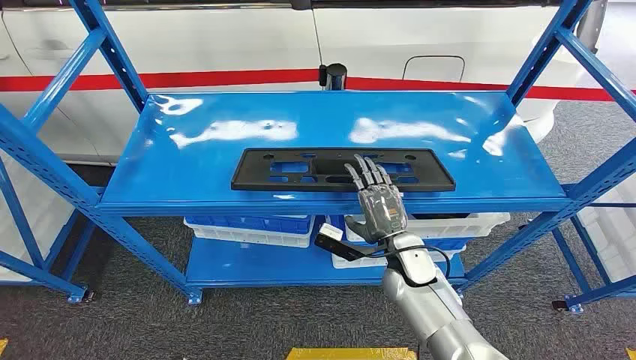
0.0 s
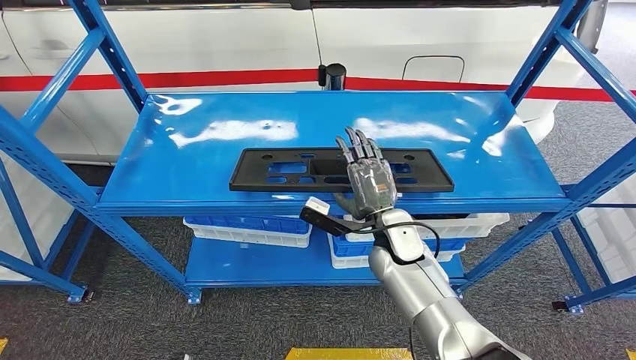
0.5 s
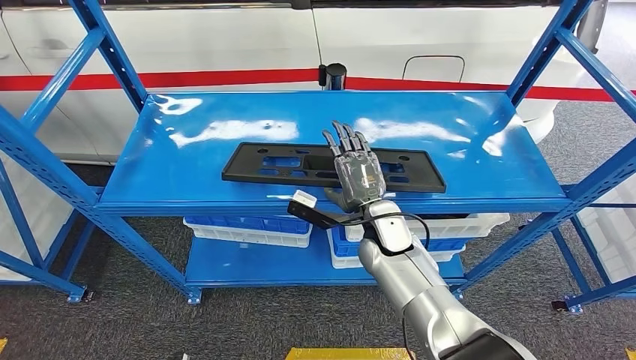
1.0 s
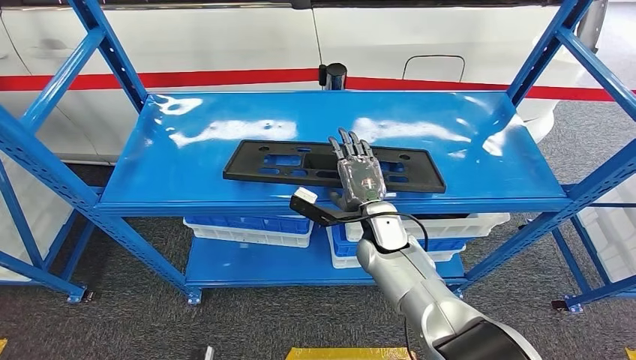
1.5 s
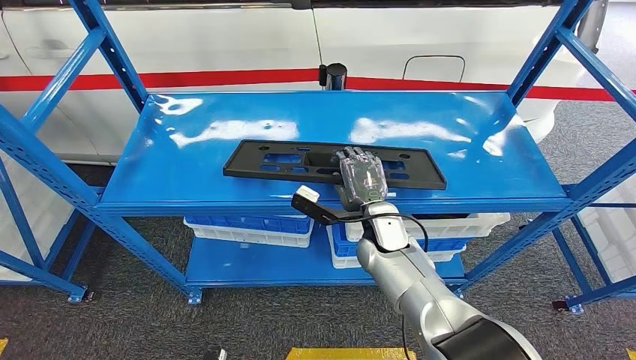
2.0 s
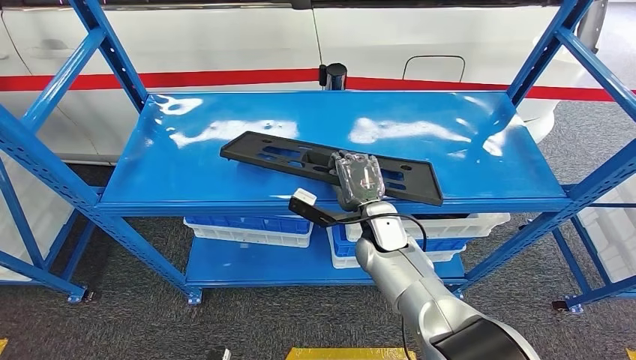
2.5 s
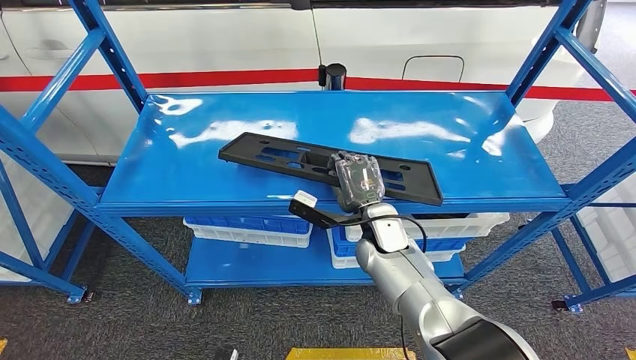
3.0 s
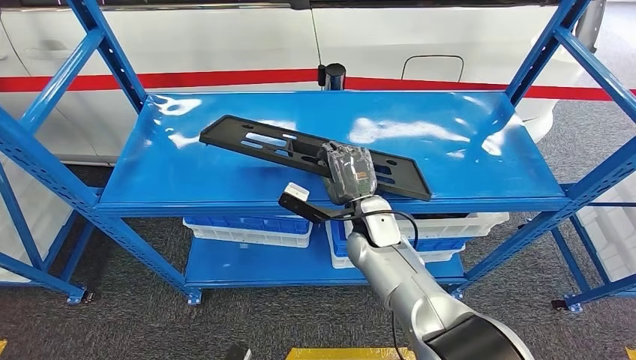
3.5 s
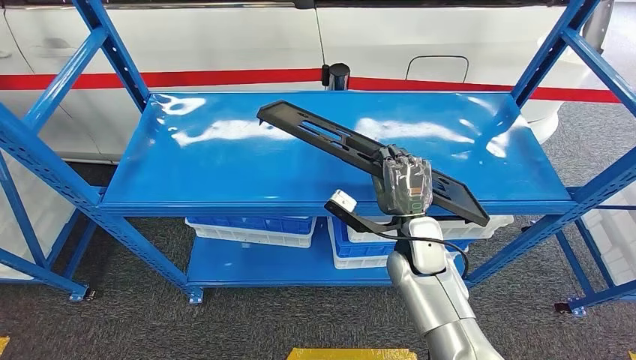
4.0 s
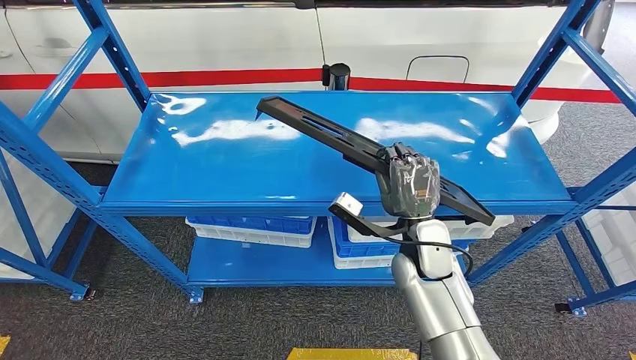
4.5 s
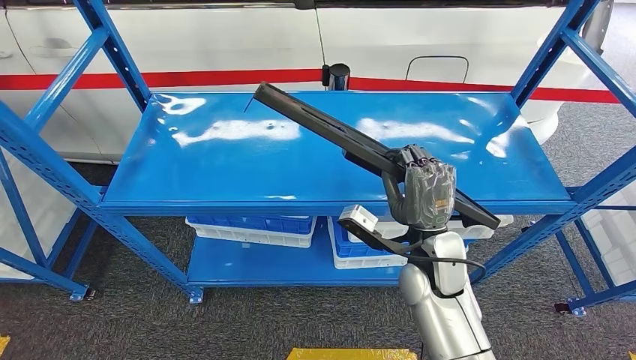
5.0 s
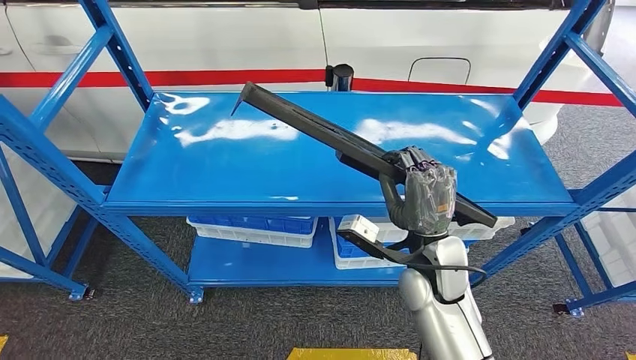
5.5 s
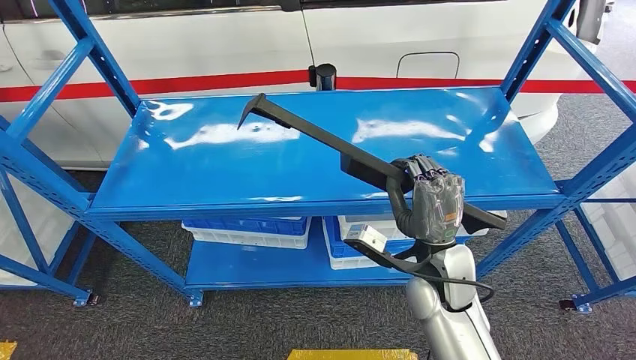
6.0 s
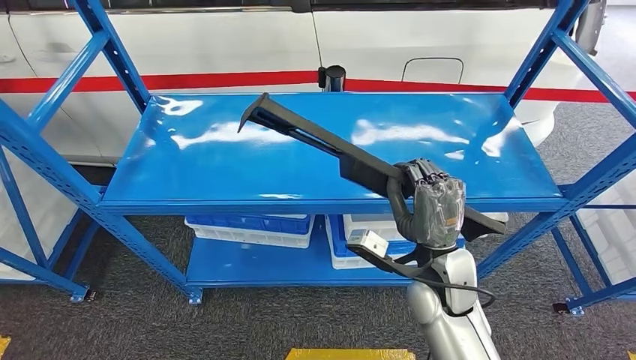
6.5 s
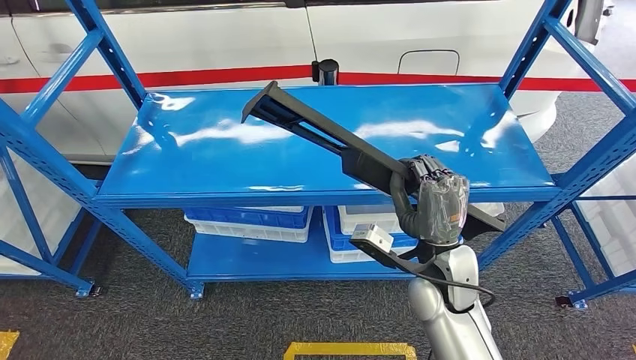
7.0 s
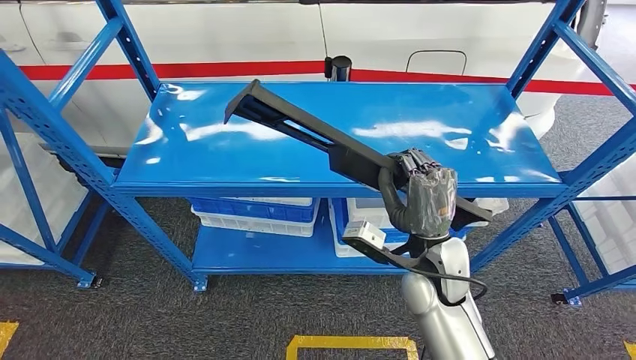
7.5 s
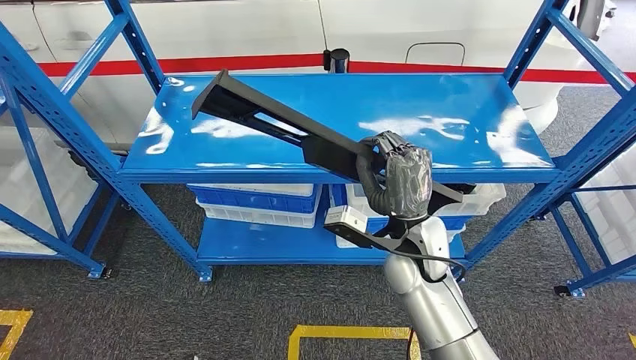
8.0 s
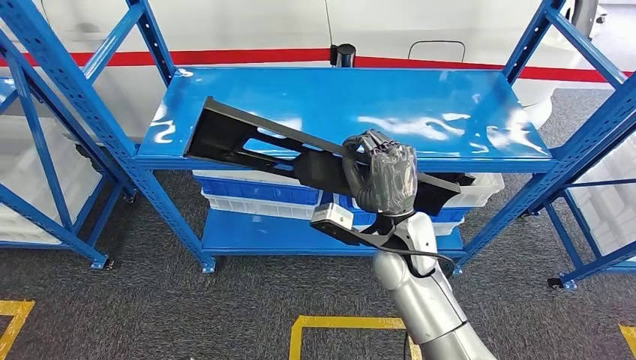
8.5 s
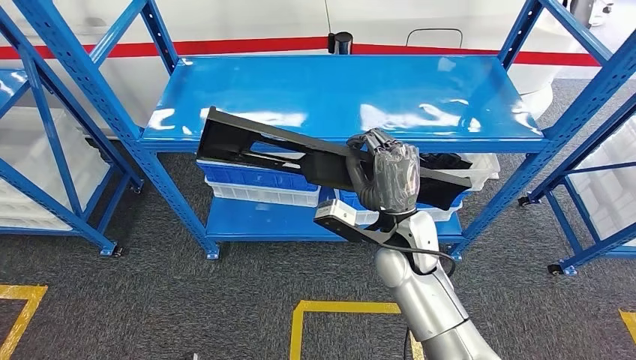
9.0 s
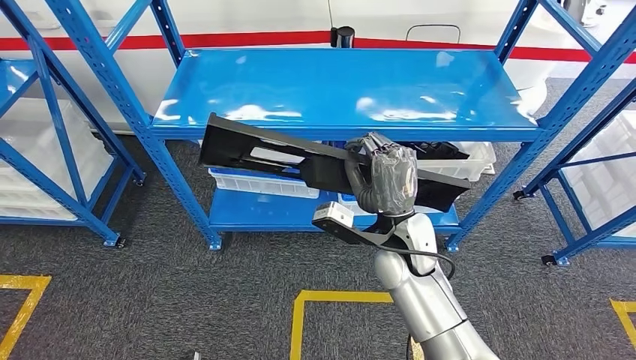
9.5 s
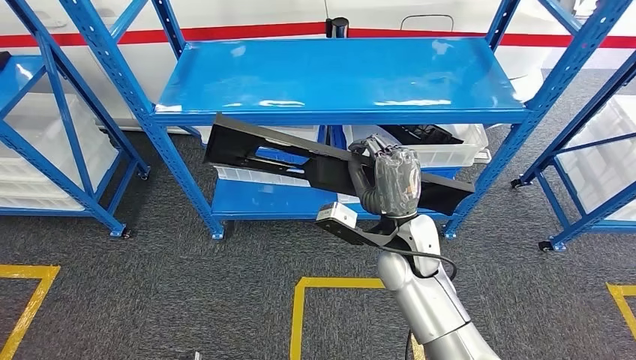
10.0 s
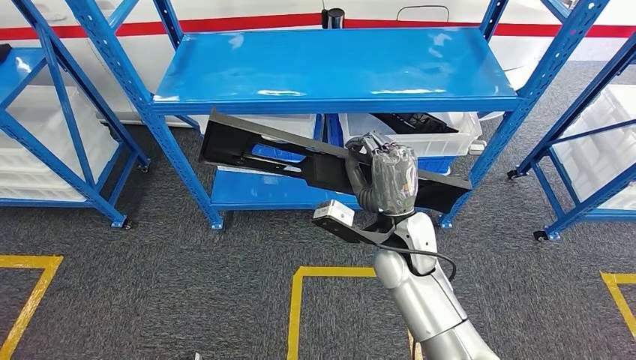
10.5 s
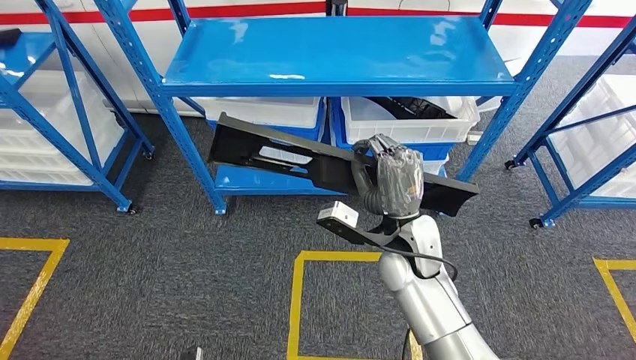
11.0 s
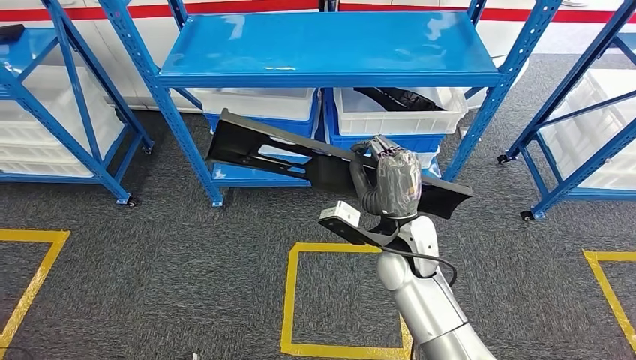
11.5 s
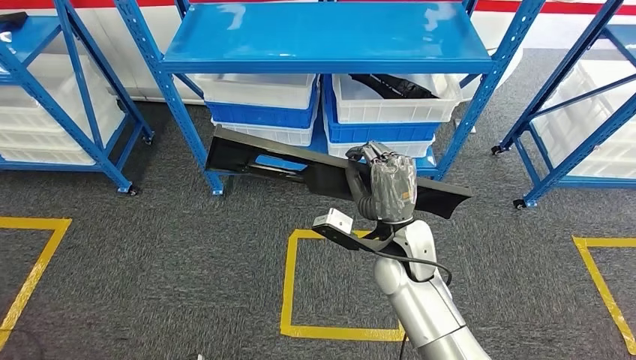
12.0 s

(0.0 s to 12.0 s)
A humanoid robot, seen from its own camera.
Step, 0.0 s - 8.0 s: Pick up the large material from the shelf.

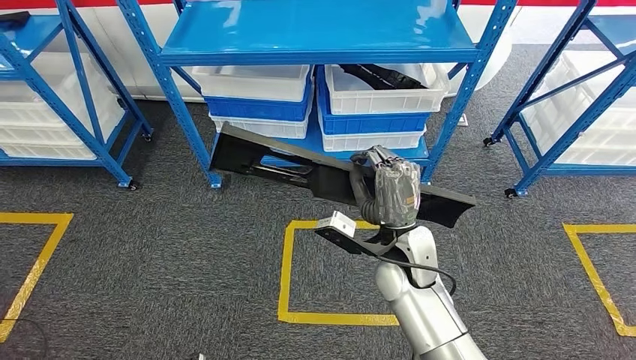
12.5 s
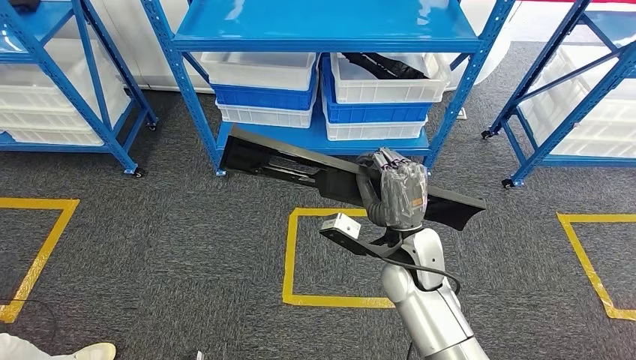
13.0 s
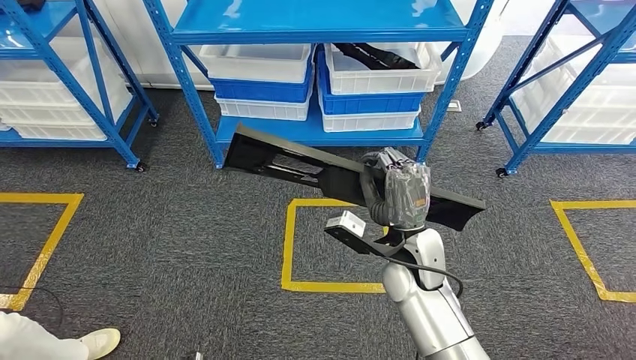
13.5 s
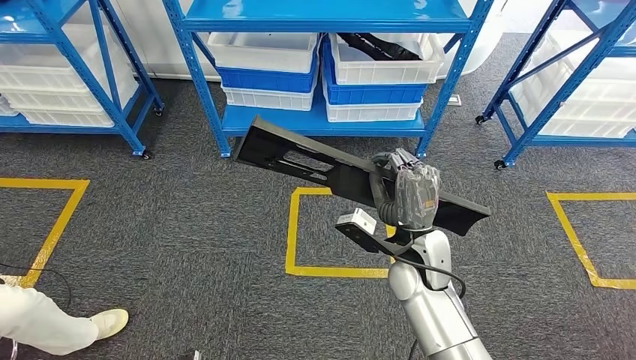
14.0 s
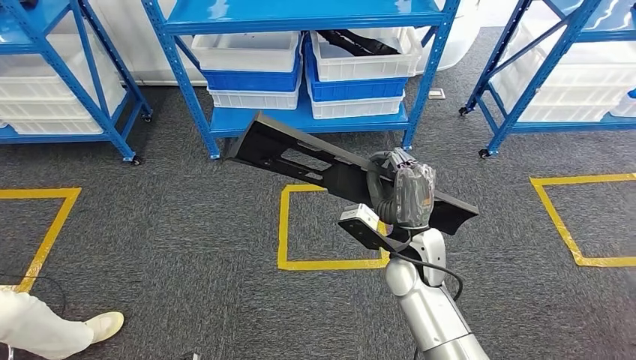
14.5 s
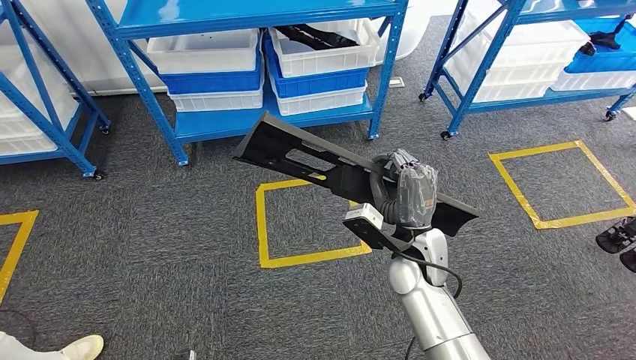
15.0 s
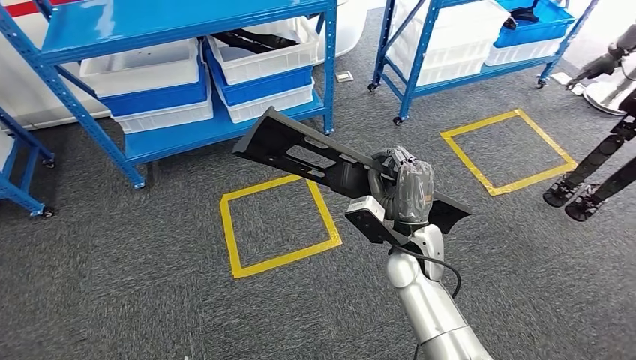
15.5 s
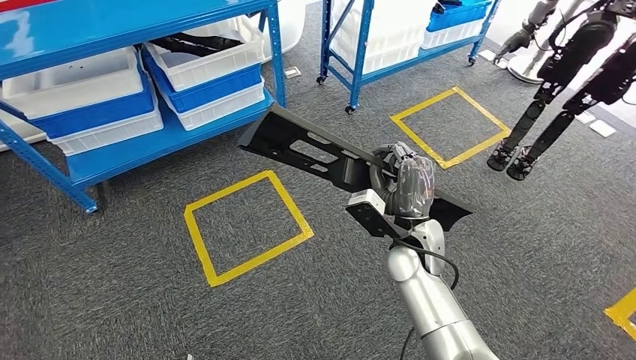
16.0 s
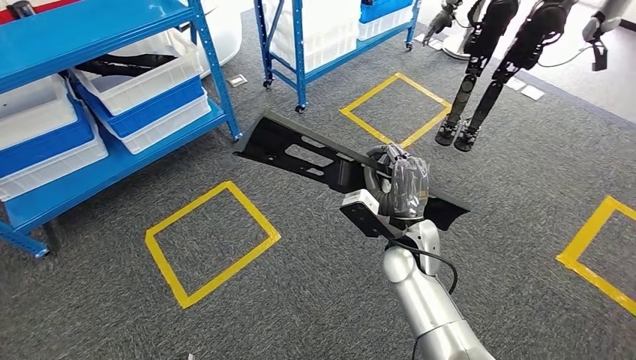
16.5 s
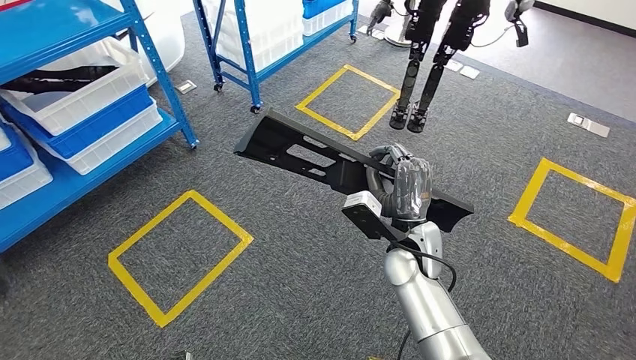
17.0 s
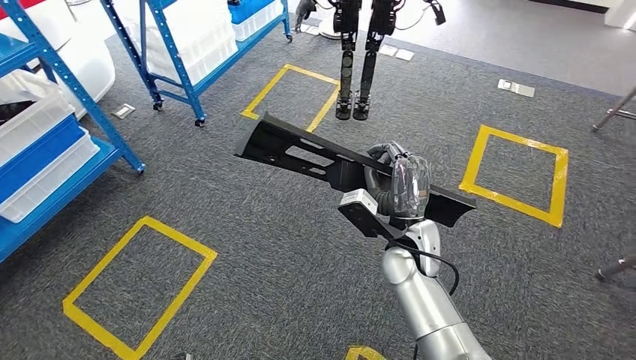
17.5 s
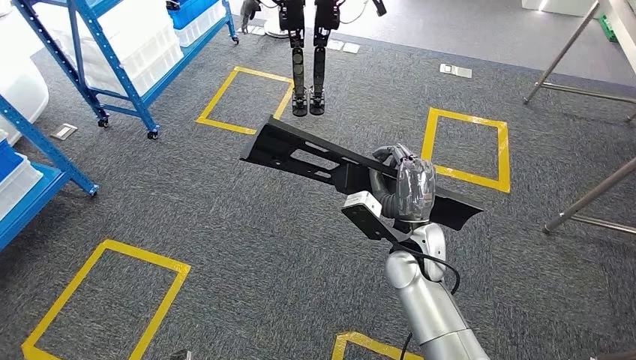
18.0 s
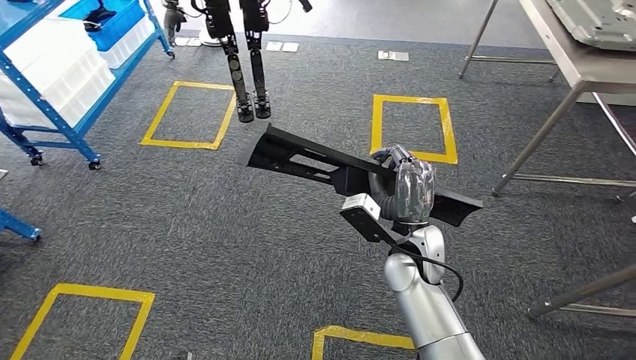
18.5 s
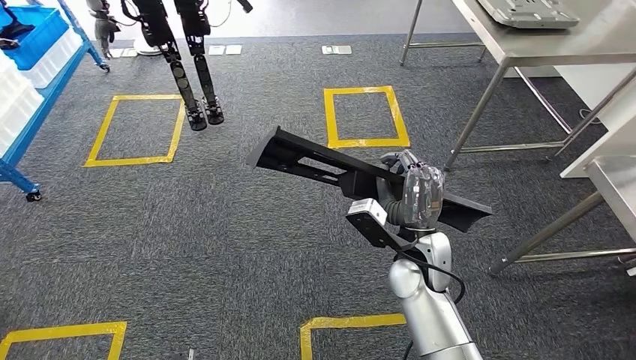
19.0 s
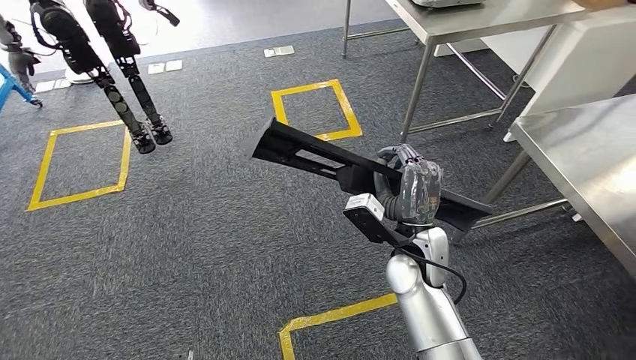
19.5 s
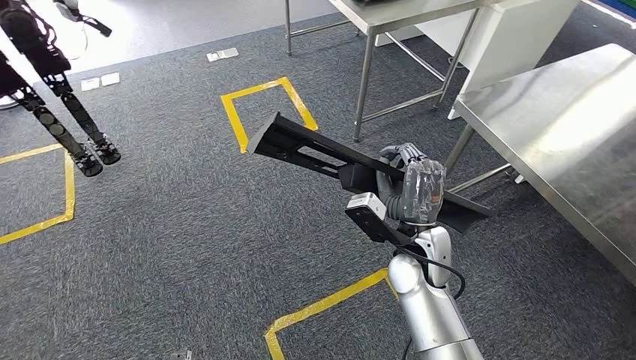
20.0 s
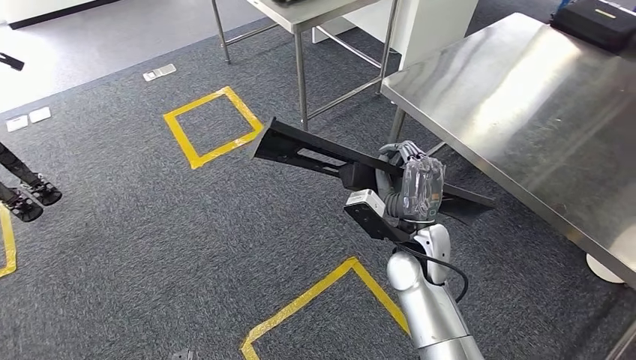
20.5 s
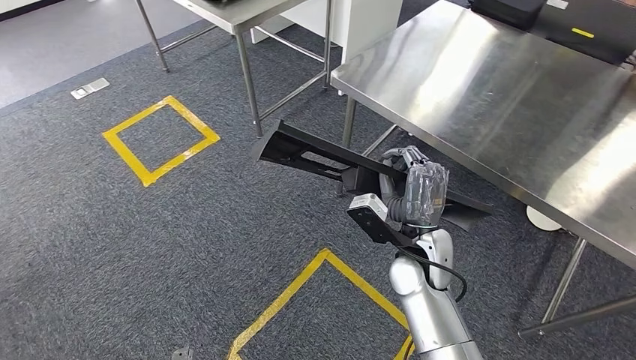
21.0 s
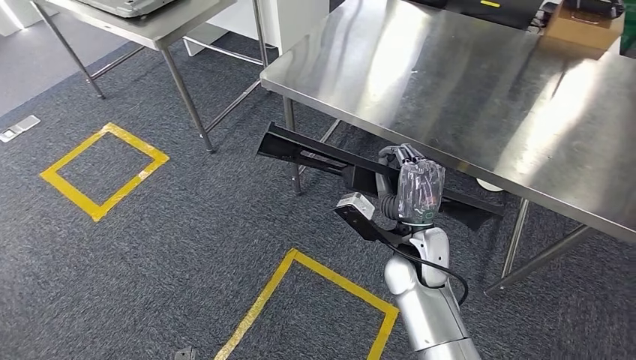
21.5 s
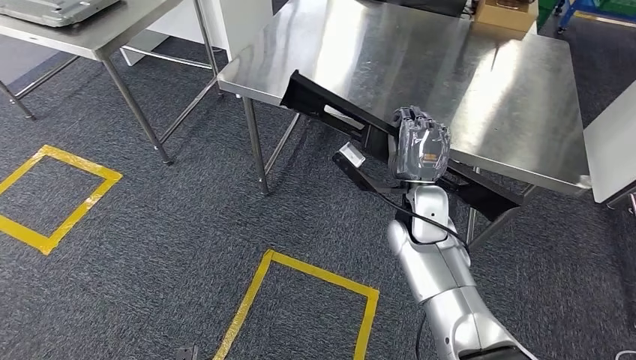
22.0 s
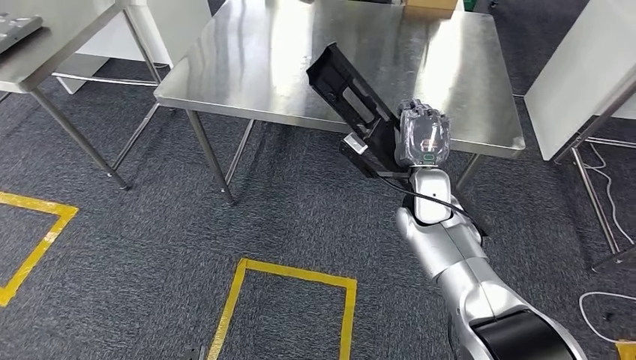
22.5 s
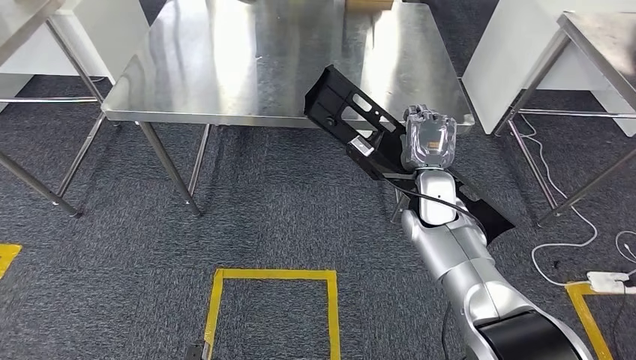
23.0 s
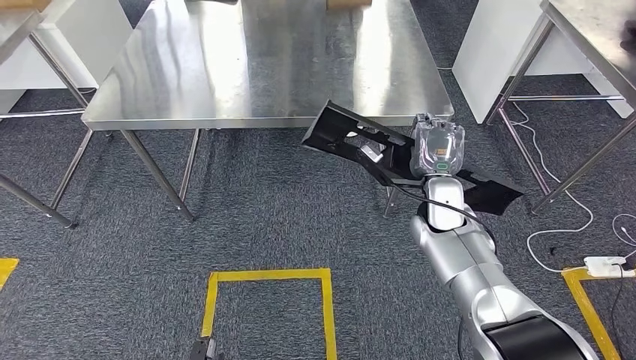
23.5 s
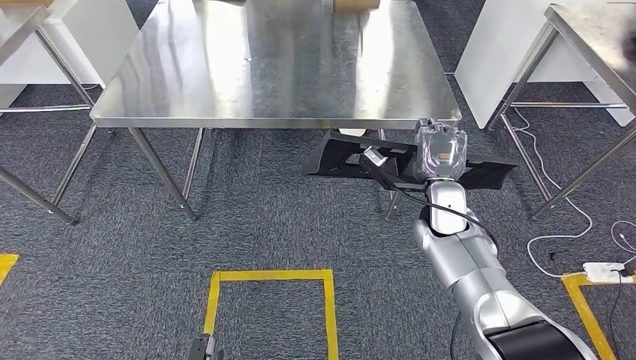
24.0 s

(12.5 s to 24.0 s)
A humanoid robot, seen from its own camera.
Step, 12.5 s - 22.5 s: Move the large material to the workbench.
